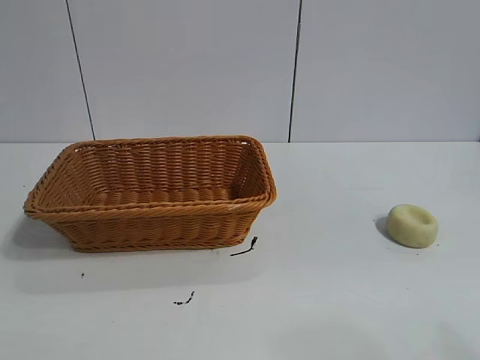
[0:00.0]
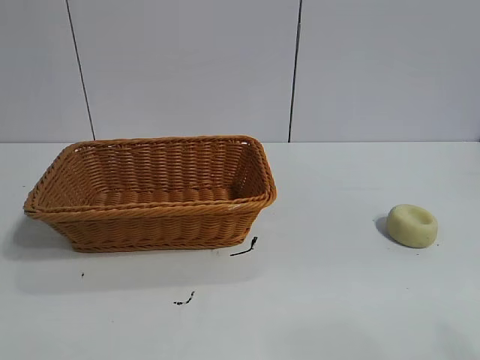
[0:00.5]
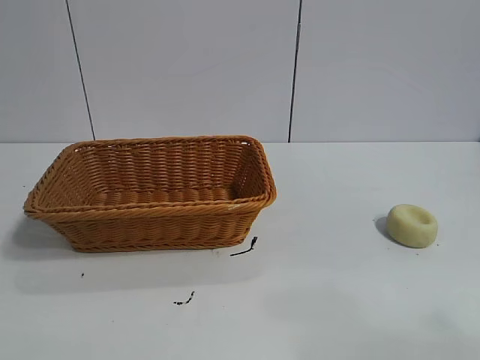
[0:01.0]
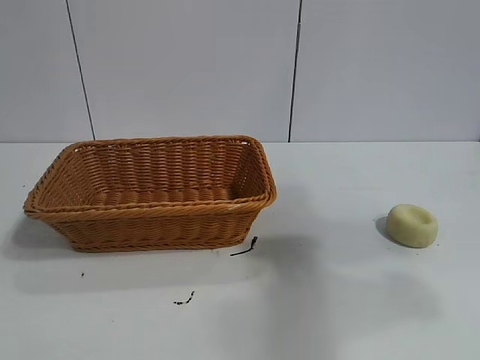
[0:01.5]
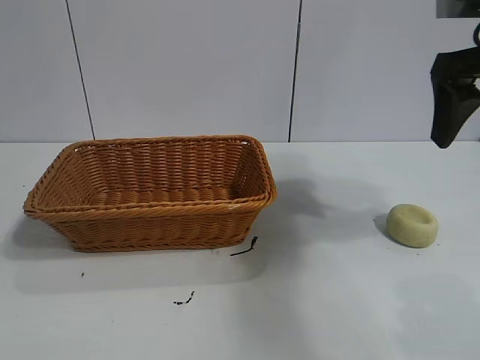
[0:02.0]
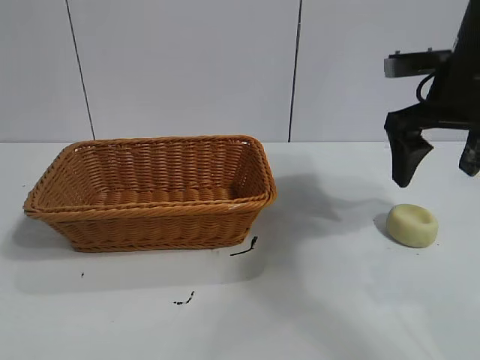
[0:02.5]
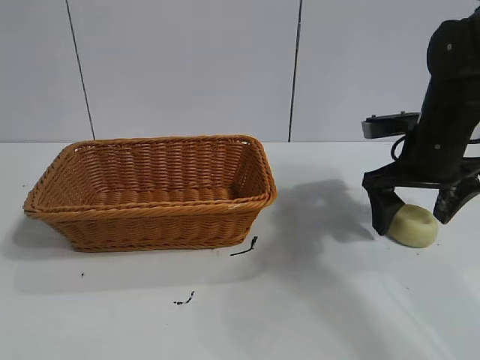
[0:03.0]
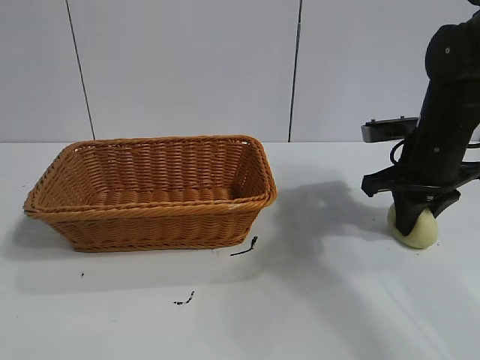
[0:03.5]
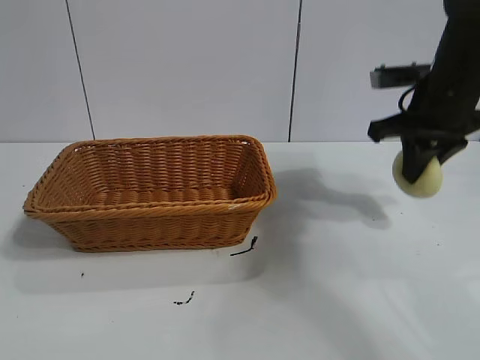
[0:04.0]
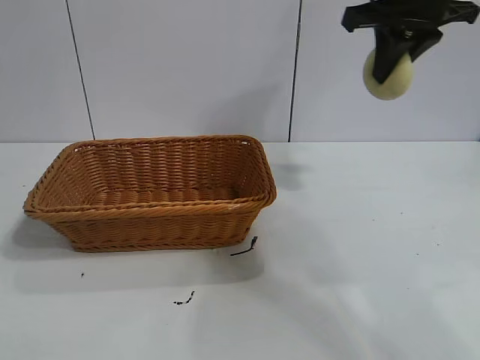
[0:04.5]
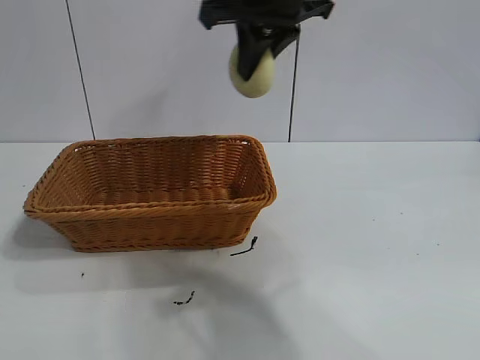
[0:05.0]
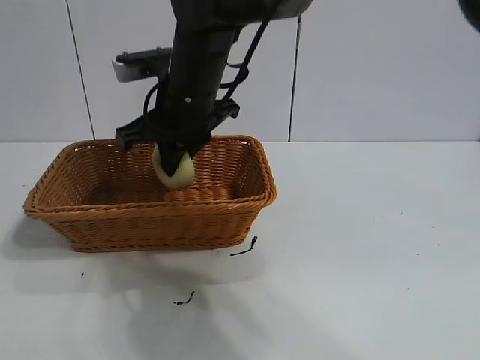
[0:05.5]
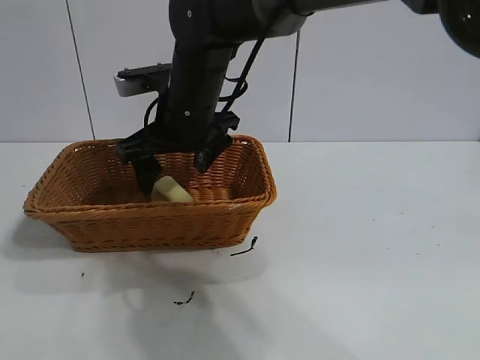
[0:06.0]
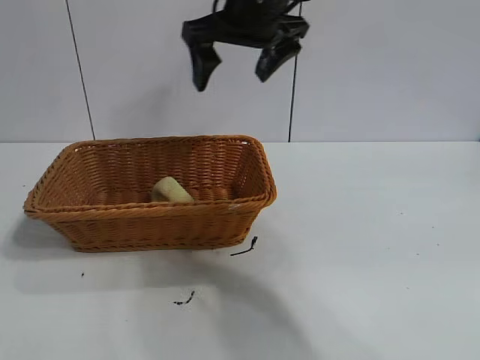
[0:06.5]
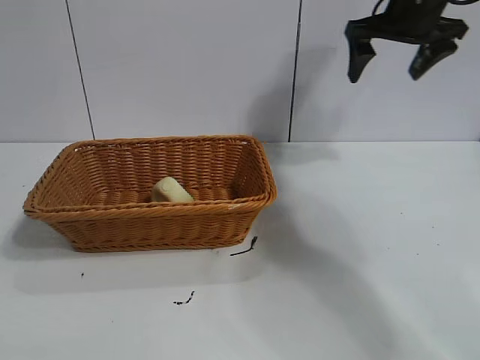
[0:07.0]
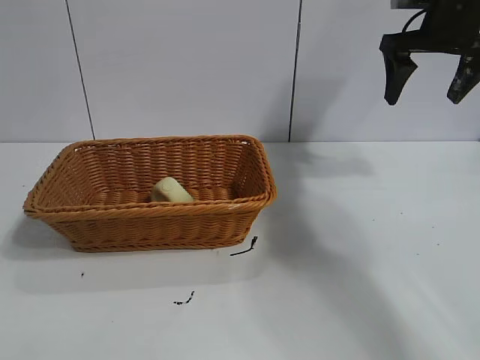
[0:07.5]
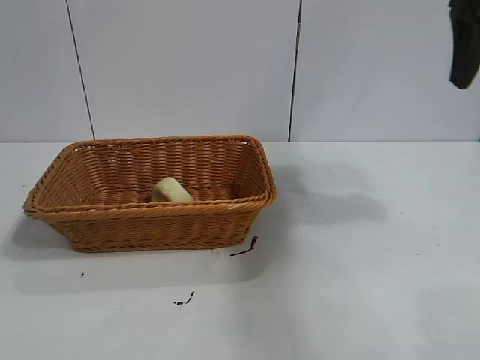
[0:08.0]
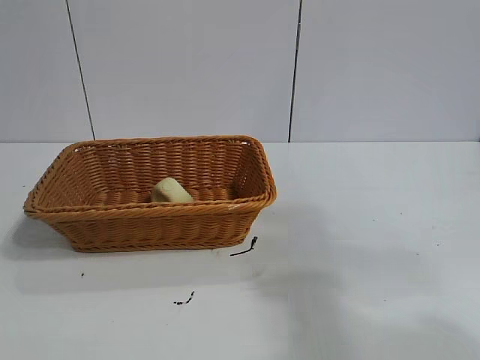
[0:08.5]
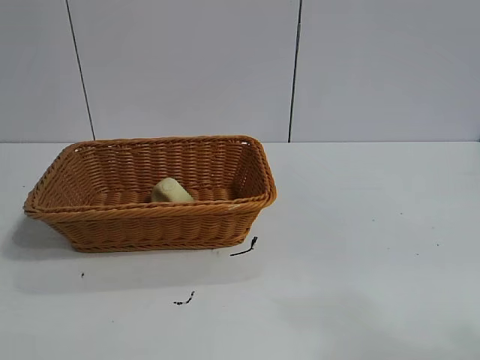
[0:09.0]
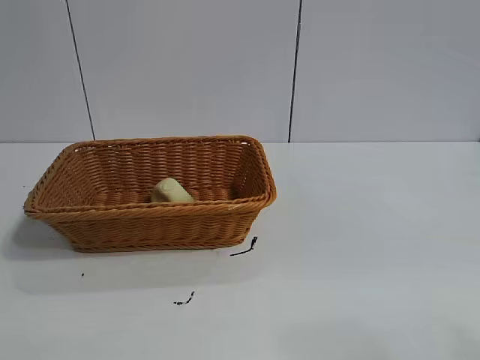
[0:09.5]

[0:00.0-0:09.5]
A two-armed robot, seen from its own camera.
Task of the whole recording: pick up the egg yolk pastry and put it into the basket.
Step, 0:01.0 to 0:03.0: Grasp egg yolk pastry with right gripper.
Step, 0:04.0 to 0:05.5: Place the egg yolk pastry in the basket with right gripper.
